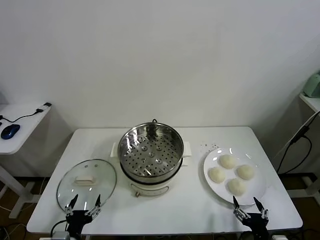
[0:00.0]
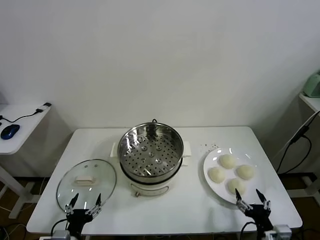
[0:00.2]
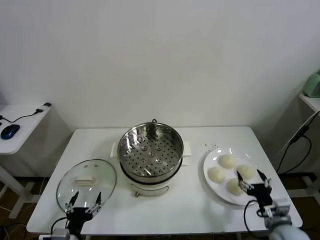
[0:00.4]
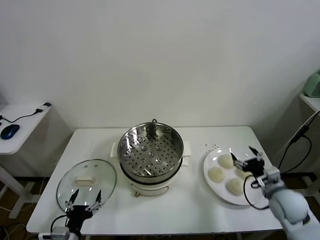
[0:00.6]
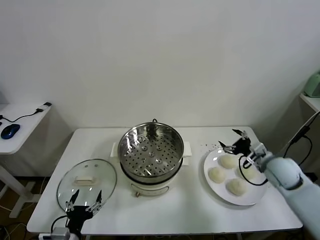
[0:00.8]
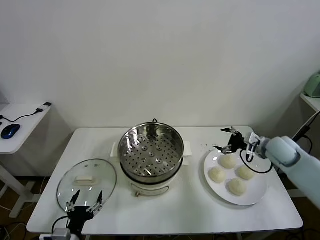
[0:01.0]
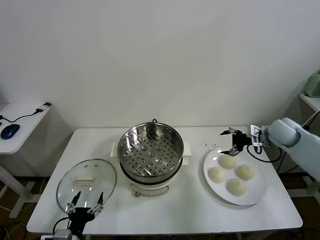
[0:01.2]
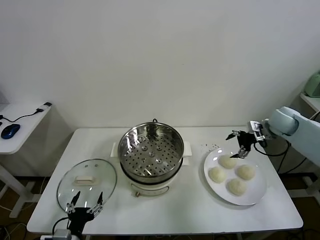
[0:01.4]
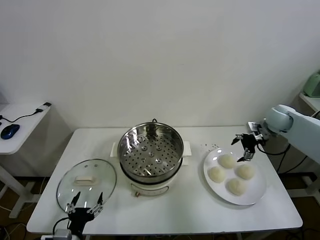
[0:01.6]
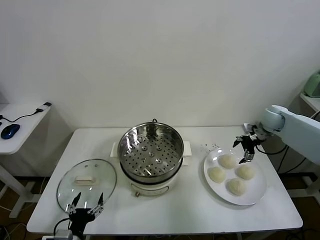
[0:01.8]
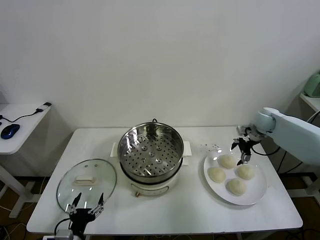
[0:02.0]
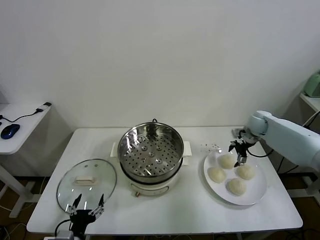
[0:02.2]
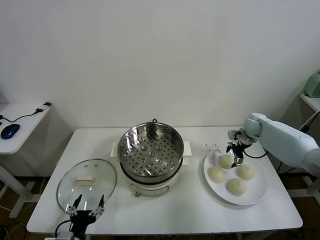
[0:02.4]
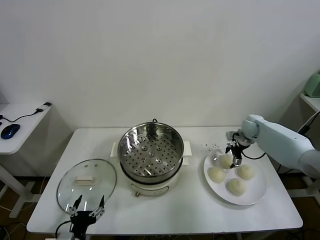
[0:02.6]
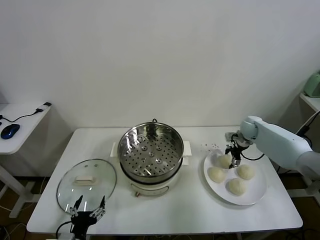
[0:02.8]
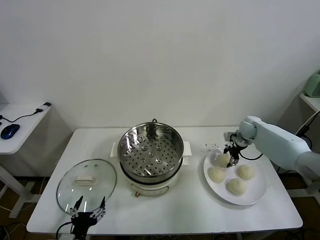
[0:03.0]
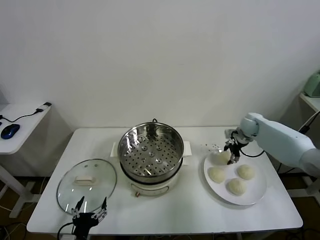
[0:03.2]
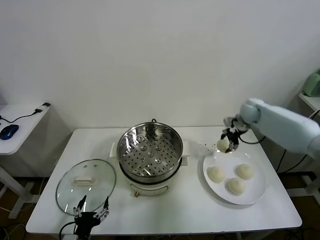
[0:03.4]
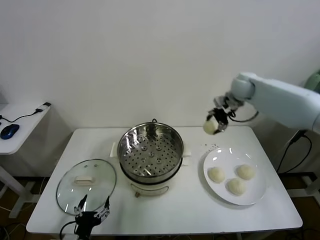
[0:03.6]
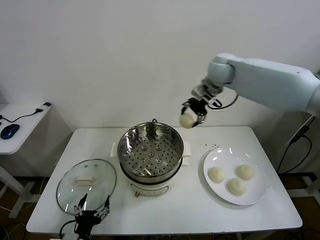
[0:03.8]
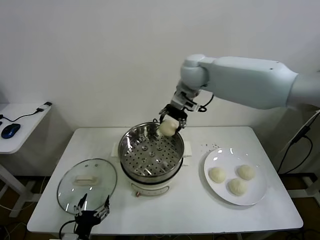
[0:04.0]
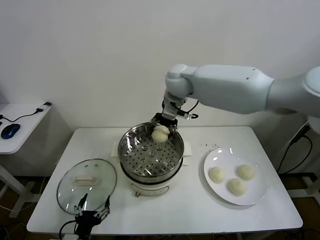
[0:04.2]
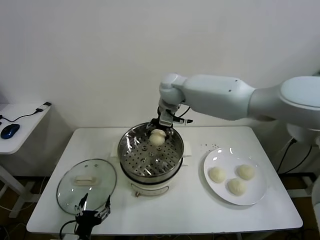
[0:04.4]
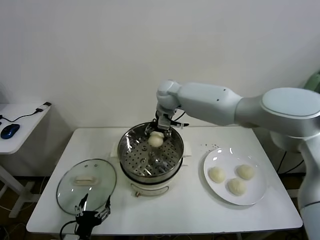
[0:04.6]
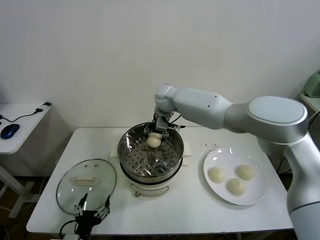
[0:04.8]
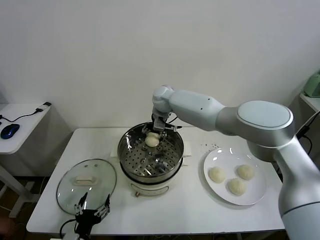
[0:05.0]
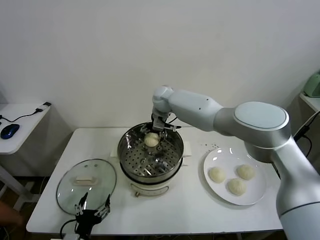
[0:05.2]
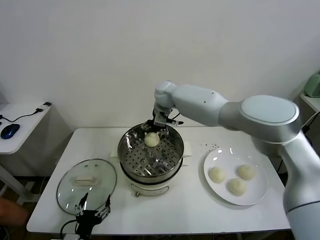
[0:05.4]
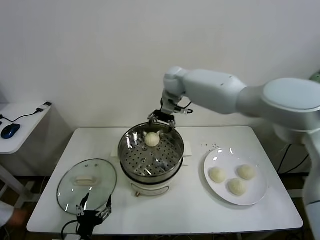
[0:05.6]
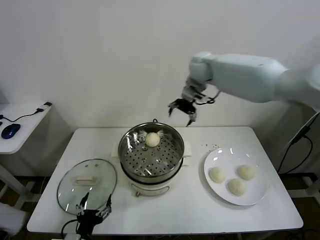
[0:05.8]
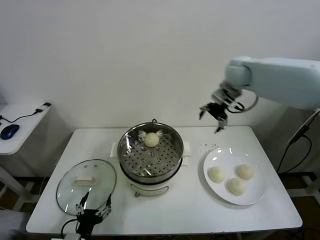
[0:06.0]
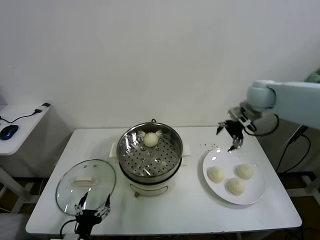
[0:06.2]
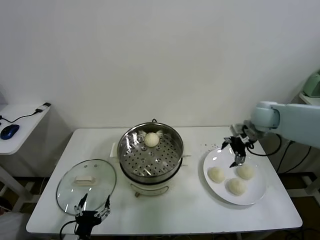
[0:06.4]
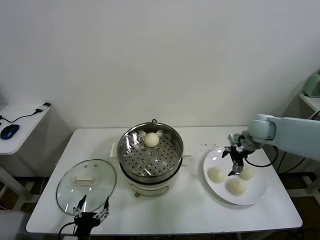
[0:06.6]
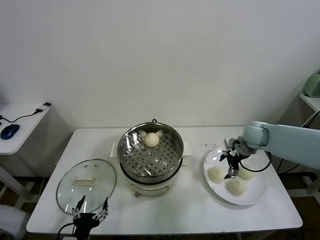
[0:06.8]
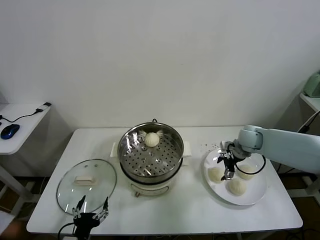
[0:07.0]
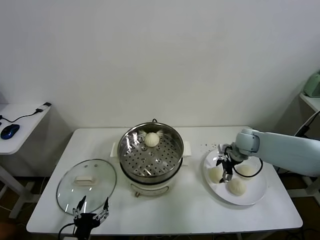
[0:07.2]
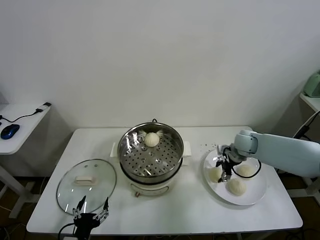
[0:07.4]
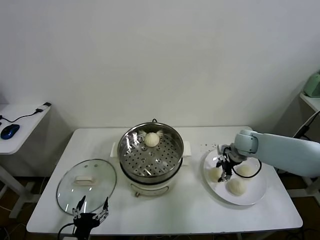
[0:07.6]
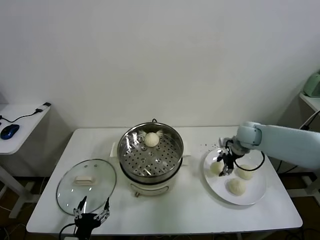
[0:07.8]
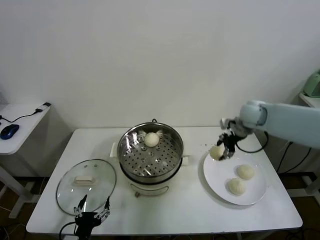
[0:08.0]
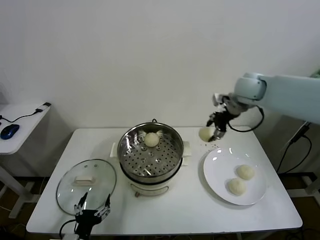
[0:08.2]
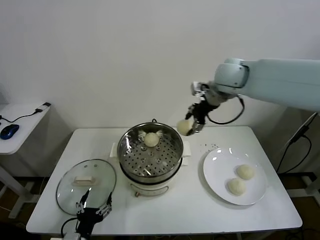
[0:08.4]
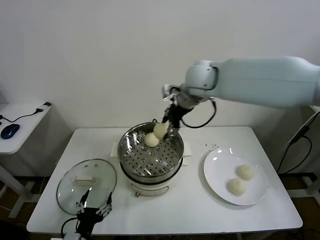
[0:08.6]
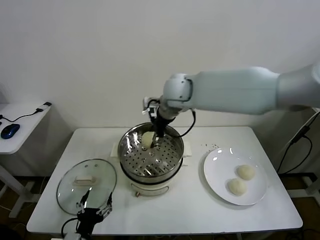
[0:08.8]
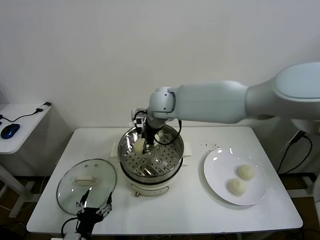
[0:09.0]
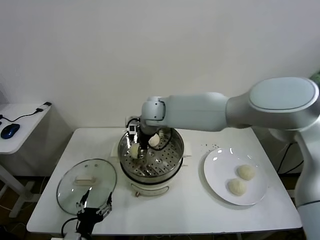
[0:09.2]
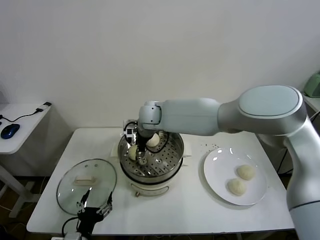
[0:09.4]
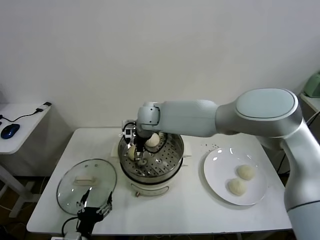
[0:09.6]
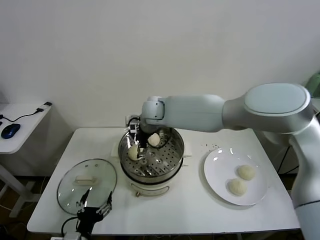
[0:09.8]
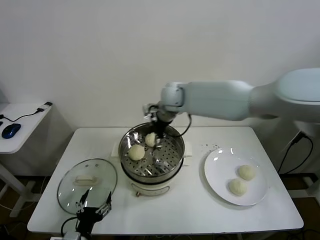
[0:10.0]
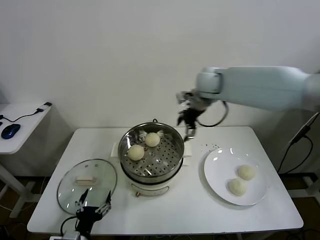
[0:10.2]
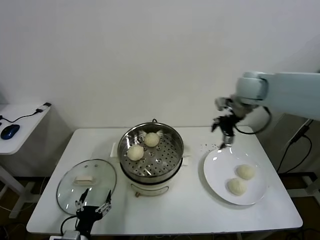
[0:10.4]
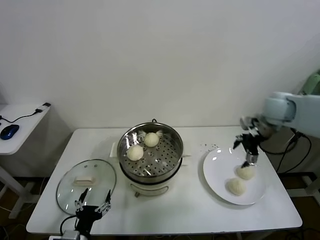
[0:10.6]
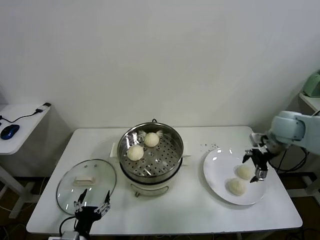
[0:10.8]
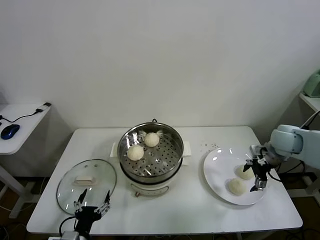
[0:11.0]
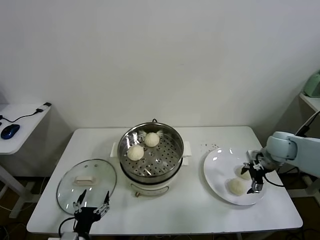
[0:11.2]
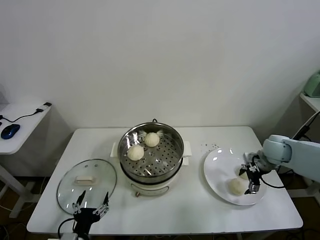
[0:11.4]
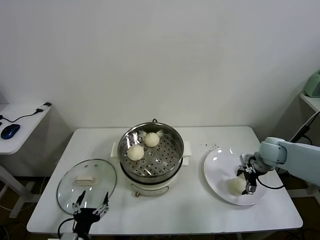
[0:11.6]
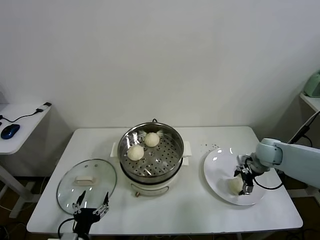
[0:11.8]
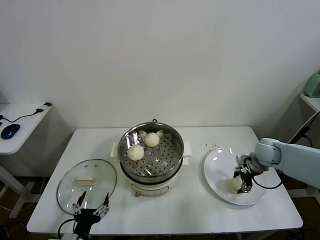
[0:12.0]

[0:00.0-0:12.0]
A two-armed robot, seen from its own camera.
Task of the whole recording: take steamed baozi put them in steamer.
Step, 0:00.0 to 0:03.0: Grasp the baozi in the plate with right gripper.
Step, 0:03.2 to 0:05.4: Place the baozi on the steamer with right gripper.
Step, 0:05.6 to 0:07.6: Grasp the baozi in the plate with right gripper.
Step, 0:07.8 to 0:09.8: Place the baozi on the steamer with right gripper.
0:01.6 to 0:03.0: The right gripper goes some 10 cm downward, and closes.
0:03.0 to 0:04.4: The right gripper heads to the left and upward, covering some 40 cm.
0:04.4 to 0:06.0: The right gripper travels to the right by roughly 25 cm, and opens.
0:06.0 to 0:07.6: The right gripper goes about 20 cm downward, and closes.
0:07.6 to 0:09.0: The right gripper travels to the left and upward by some 35 cm.
0:09.0 to 0:10.4: The right gripper shifts approximately 30 cm to the right, and opens.
0:10.4 to 0:12.0: The right gripper moves downward, approximately 20 cm, and closes.

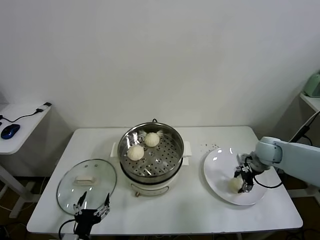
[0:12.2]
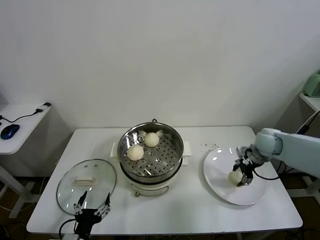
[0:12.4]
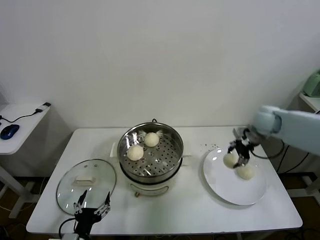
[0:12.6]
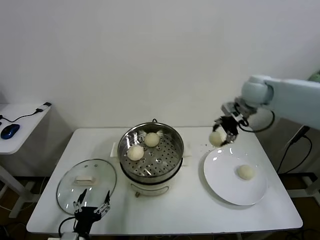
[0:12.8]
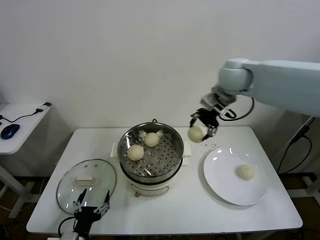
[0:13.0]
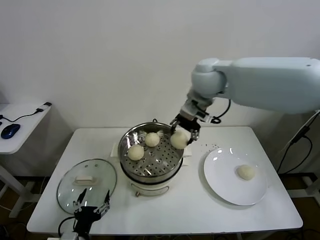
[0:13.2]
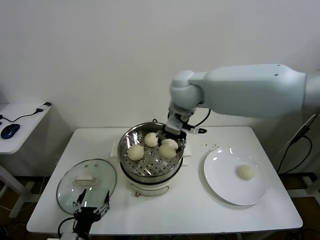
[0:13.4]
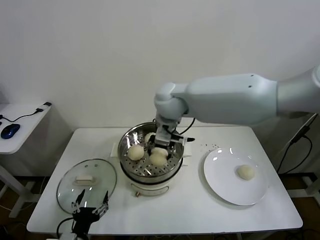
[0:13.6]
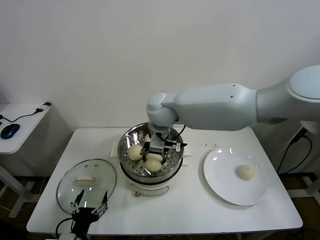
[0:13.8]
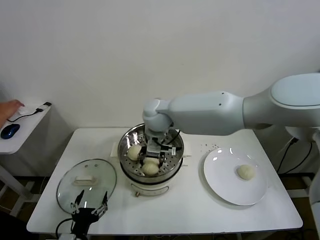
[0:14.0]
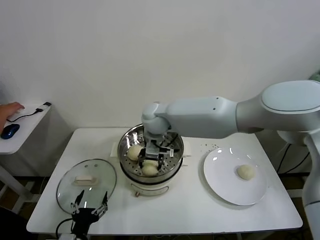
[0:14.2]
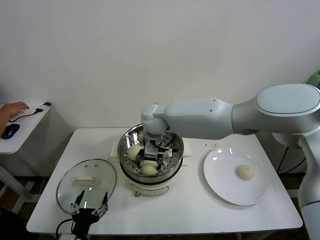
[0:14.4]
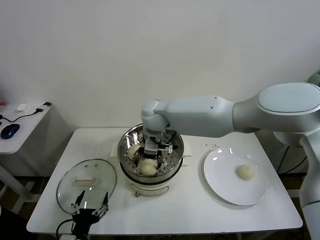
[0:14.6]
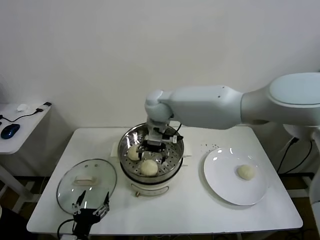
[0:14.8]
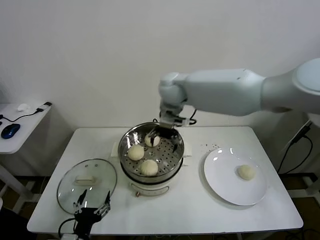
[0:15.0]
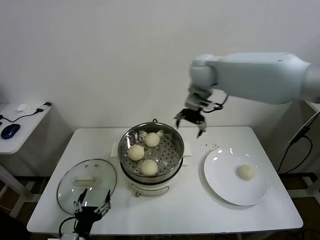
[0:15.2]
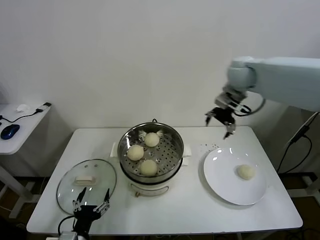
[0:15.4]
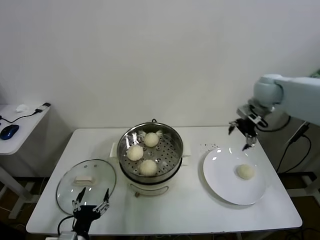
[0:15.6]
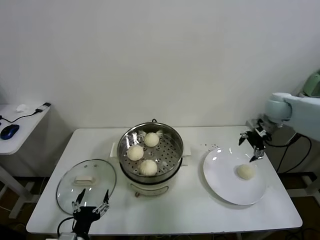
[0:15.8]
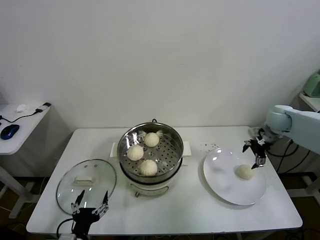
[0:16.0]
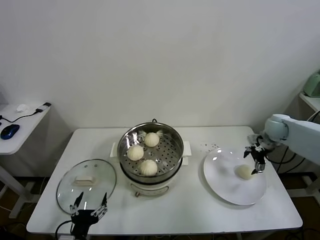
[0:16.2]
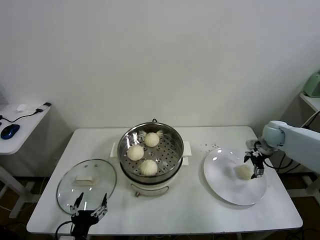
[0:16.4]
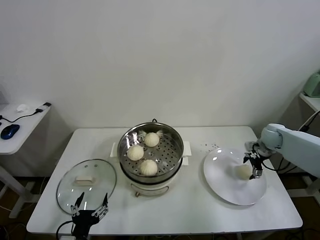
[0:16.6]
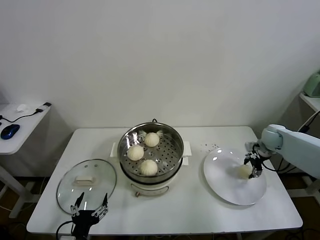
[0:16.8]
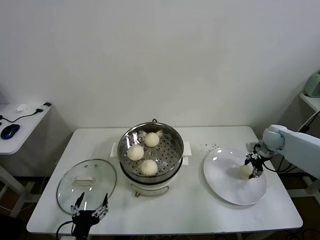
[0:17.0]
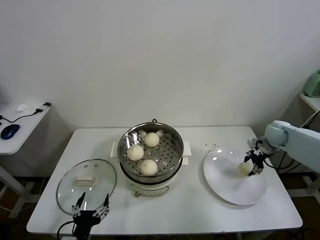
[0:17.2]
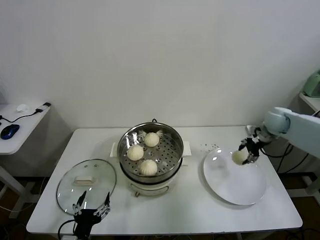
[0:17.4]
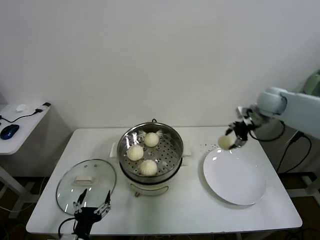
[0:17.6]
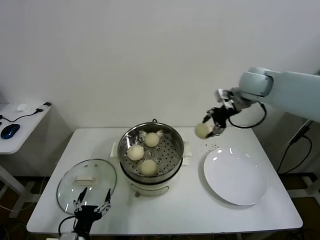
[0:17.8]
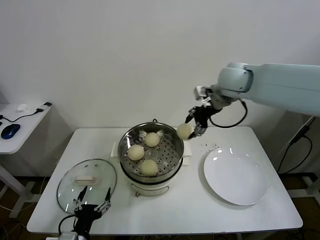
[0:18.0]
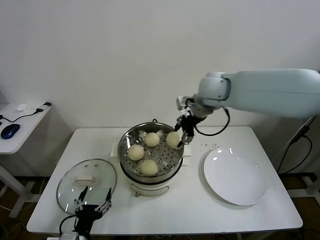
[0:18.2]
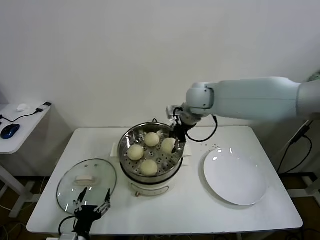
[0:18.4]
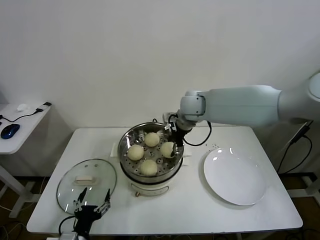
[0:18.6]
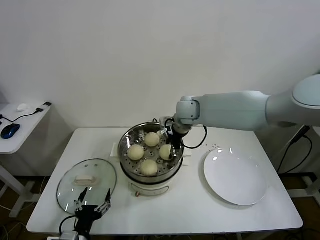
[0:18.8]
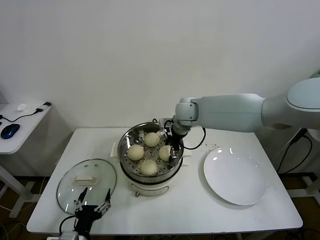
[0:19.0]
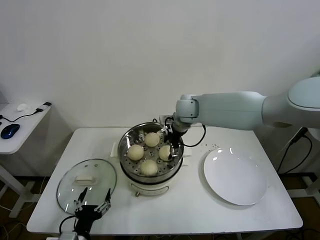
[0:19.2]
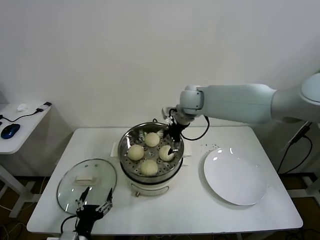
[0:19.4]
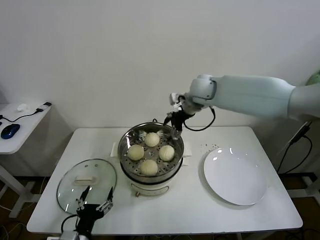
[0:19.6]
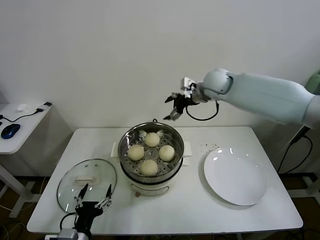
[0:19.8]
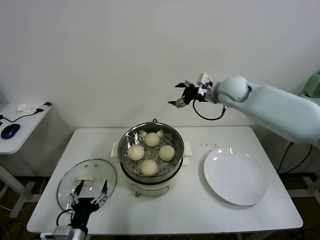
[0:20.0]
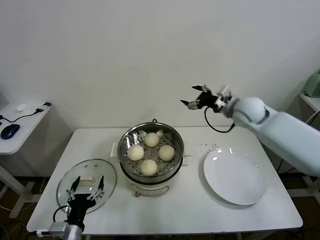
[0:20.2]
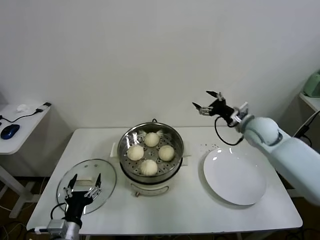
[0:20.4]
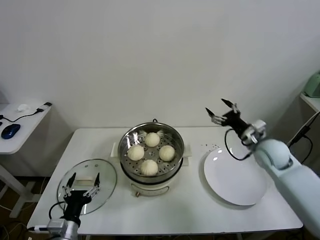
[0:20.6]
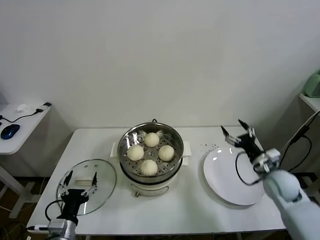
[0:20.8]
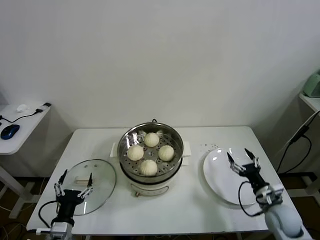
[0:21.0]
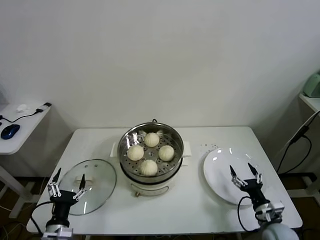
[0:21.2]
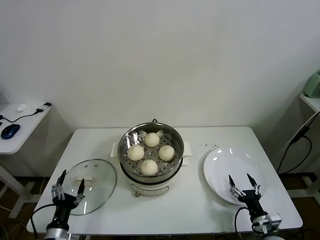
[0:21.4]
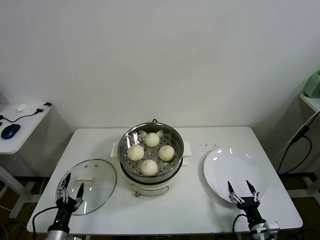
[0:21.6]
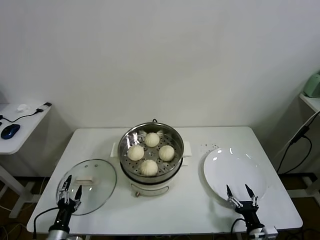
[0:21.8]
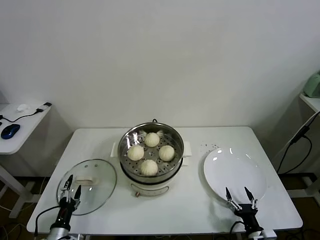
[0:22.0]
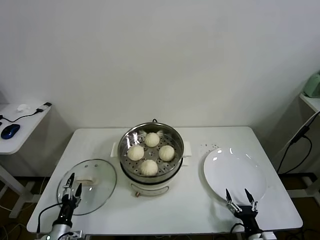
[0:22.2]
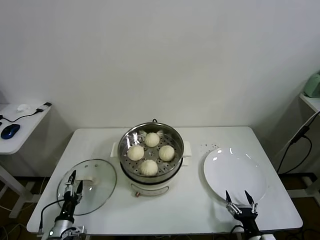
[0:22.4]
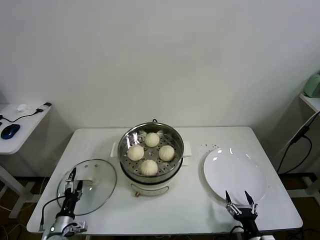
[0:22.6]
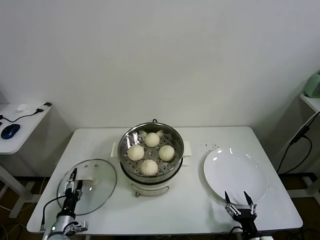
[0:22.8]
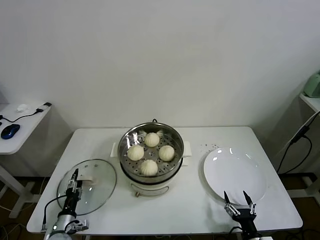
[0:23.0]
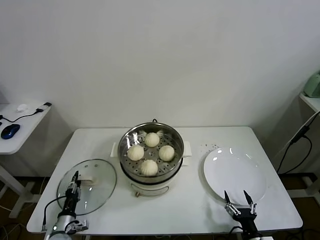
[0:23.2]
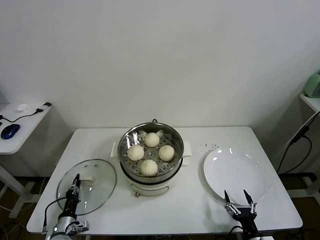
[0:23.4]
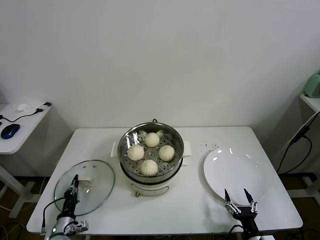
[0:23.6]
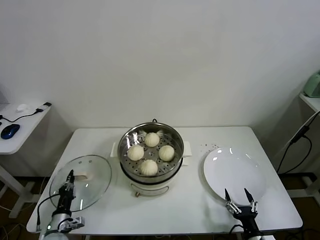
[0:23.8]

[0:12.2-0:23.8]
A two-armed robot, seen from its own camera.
Task of the whole recording: take steamed baozi put them in steamer.
Step, 0:12.2 to 0:14.6: Place the baozi on the steamer with right gripper.
Step, 0:14.8 to 0:16.8: Grasp the baozi in the plate with right gripper.
Step, 0:17.2 to 0:19.2: Place the baozi on the steamer with right gripper.
Step, 0:19.6 to 0:23.4: Grasp the pot lid with left gripper.
0:12.2 to 0:13.6: The right gripper is displaced to the left and upward by about 40 cm.
0:13.6 to 0:15.0: The right gripper heads forward, covering about 5 cm, reaches roughly 10 cm downward, then returns, and opens its fingers.
0:15.0 to 0:16.6: The right gripper goes about 50 cm to the right and downward.
0:16.6 to 0:18.0: The right gripper goes approximately 35 cm upward and to the left, and closes its fingers.
0:18.0 to 0:19.4: The right gripper shifts about 15 cm to the left and downward, and opens up.
0:19.4 to 0:21.0: The right gripper shifts about 50 cm to the right, backward and downward; the left gripper travels to the left by roughly 5 cm.
0:21.0 to 0:22.4: The right gripper heads backward, downward and to the left, covering about 20 cm. Meanwhile the left gripper is displaced downward and to the left by approximately 15 cm.
0:22.4 to 0:23.8: The left gripper closes.
